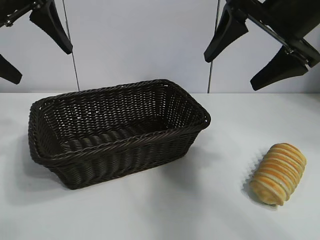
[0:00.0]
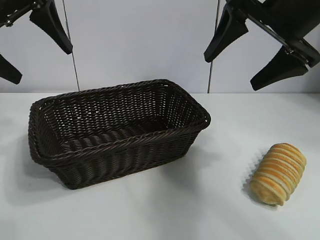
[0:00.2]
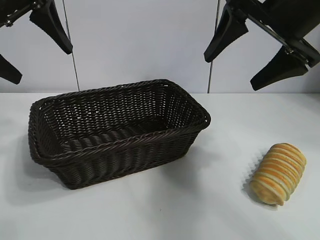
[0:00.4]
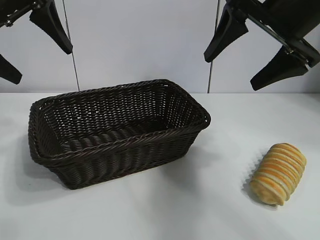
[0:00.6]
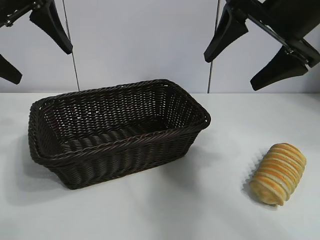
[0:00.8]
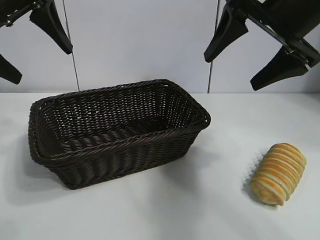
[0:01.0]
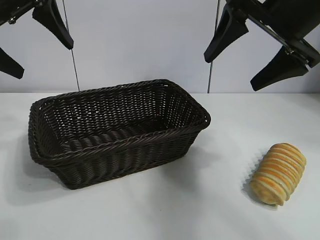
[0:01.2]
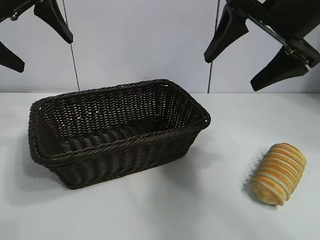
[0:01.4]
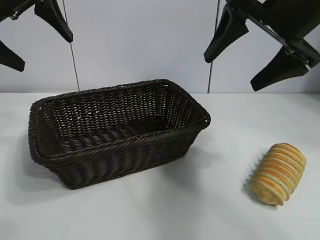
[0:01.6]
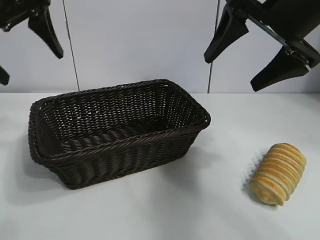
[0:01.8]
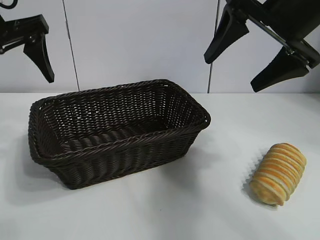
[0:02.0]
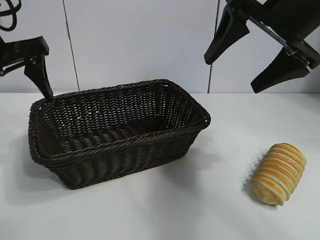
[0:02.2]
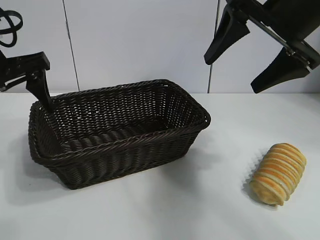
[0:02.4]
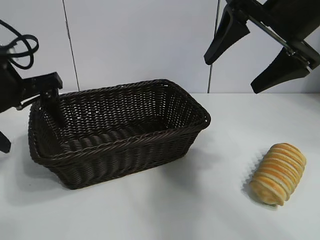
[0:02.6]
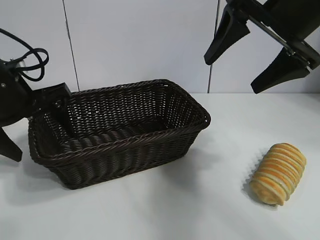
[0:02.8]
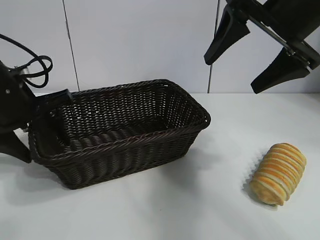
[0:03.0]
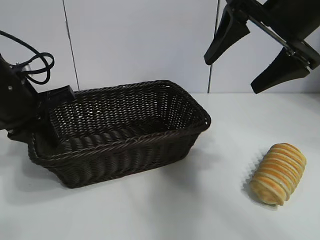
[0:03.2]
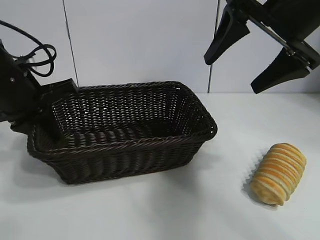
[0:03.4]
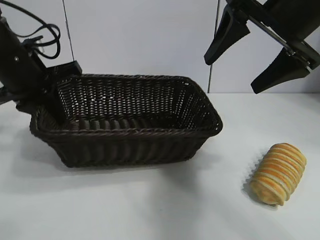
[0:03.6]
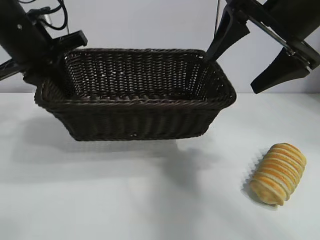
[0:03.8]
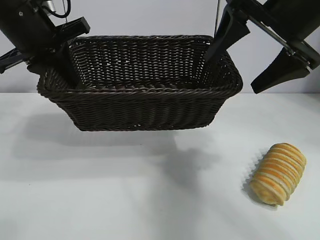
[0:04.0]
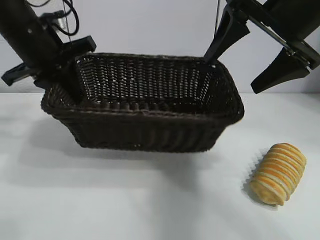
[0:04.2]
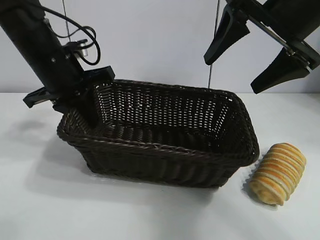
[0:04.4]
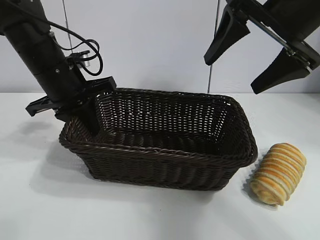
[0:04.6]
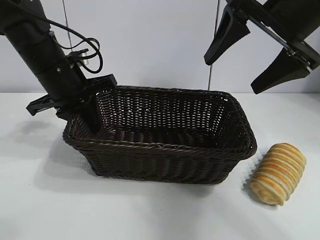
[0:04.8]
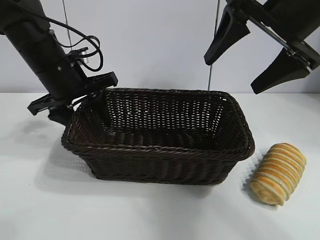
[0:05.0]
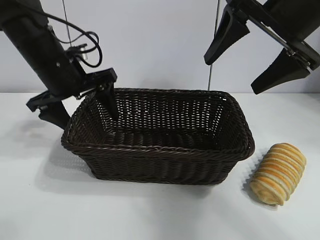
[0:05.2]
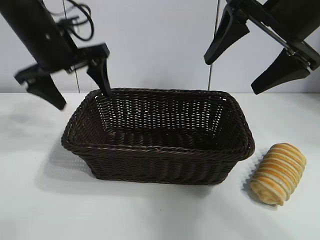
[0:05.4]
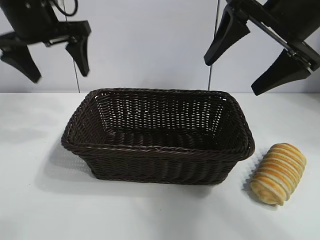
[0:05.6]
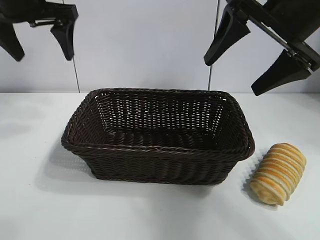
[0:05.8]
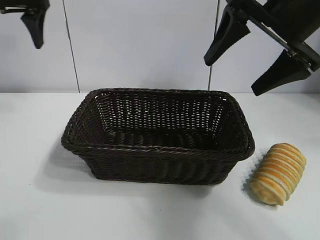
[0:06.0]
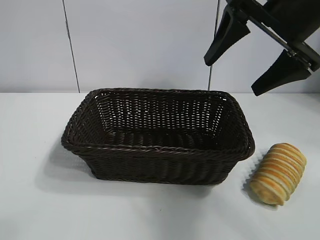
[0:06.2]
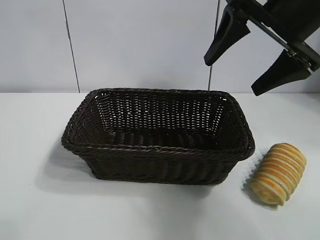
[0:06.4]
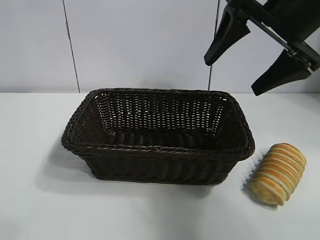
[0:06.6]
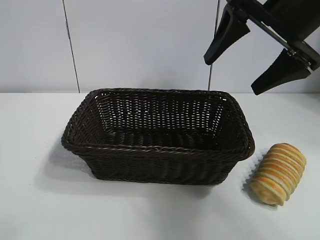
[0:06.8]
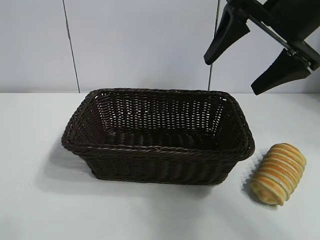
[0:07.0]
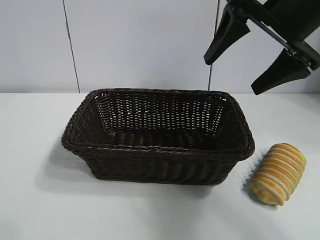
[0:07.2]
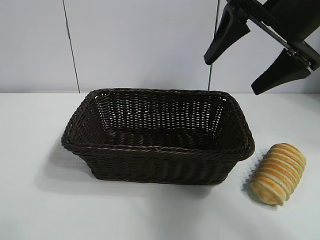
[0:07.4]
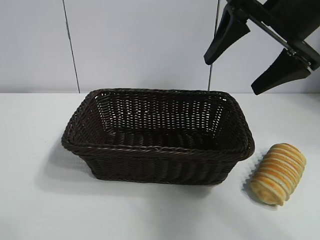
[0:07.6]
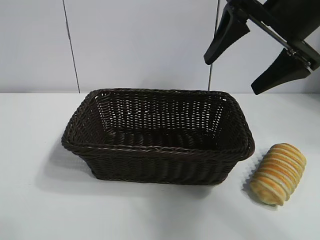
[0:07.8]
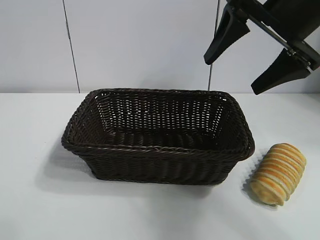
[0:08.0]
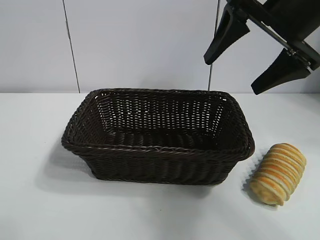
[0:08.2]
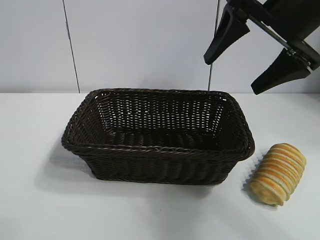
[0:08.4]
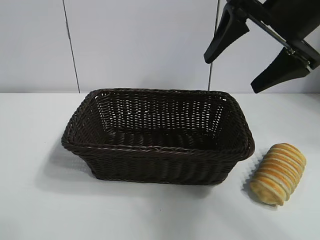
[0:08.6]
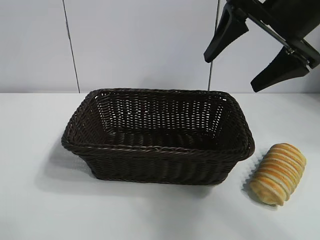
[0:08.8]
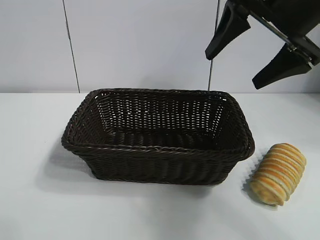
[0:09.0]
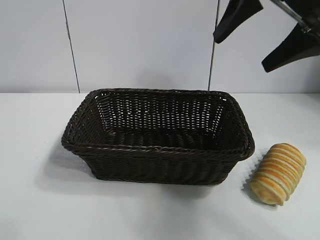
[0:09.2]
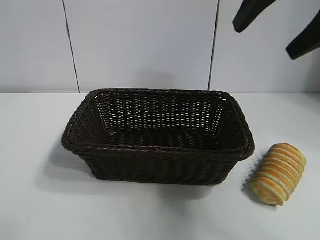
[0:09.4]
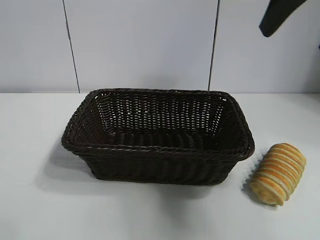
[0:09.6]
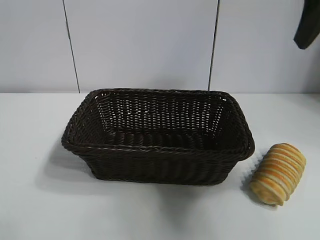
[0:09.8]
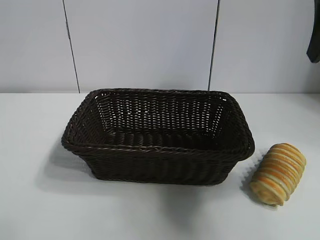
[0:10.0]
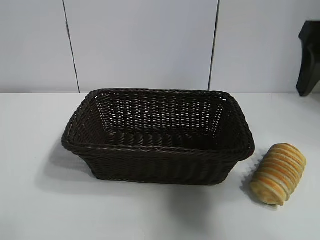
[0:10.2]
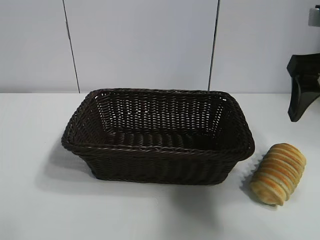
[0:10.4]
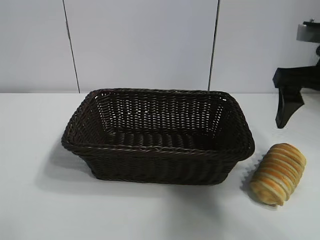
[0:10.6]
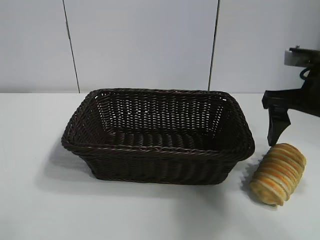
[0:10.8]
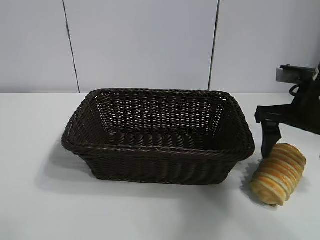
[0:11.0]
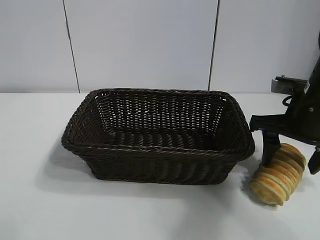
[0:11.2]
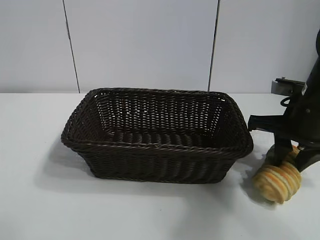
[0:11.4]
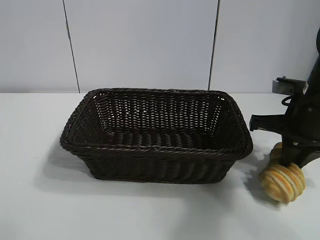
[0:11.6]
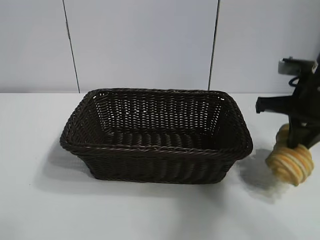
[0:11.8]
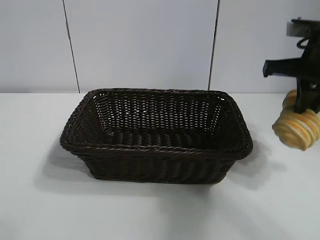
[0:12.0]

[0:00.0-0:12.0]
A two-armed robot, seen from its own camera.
Task of the whole recording: pick up the long bread and put it into the basket.
Step, 0:01.8 to 0:03.2: Grasp the basket with the left gripper.
Step, 0:03.4 to 0:05.0: Place the basket in the center of the table with the left gripper.
Step, 0:05.4 to 0:11.4: Grasp the long bread with right gripper.

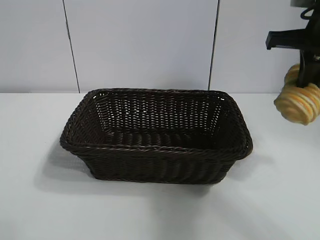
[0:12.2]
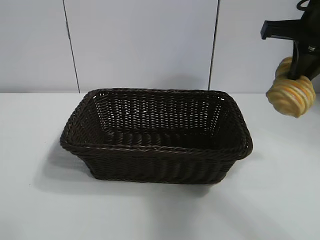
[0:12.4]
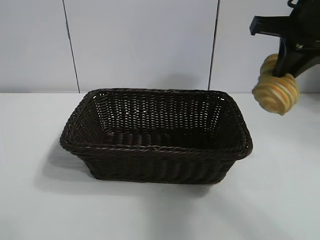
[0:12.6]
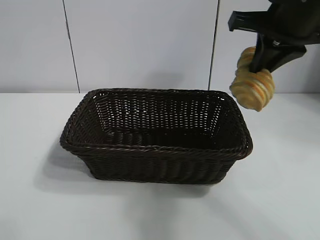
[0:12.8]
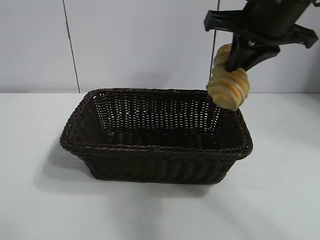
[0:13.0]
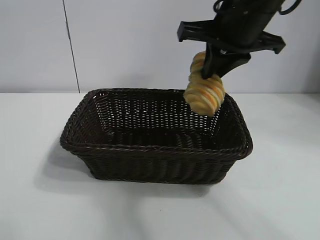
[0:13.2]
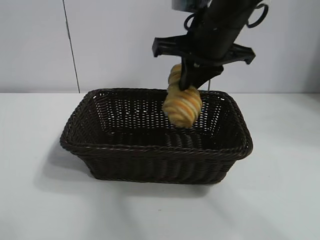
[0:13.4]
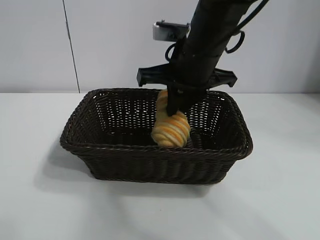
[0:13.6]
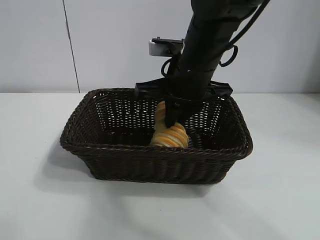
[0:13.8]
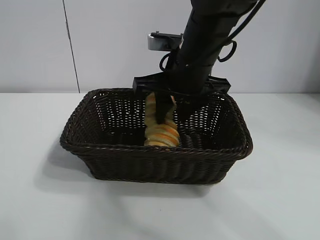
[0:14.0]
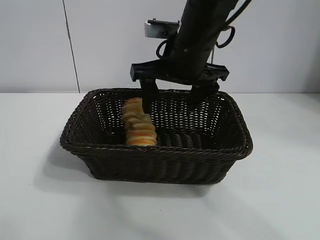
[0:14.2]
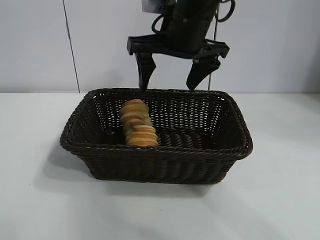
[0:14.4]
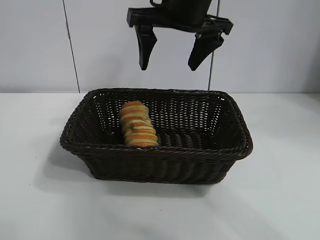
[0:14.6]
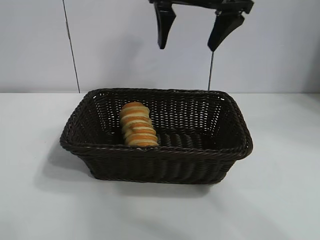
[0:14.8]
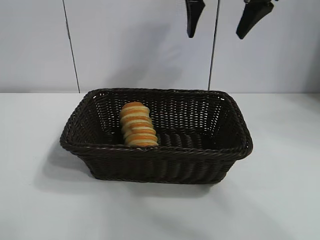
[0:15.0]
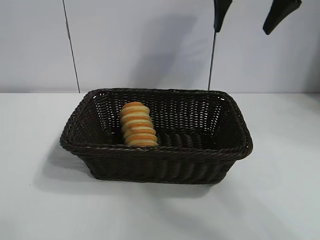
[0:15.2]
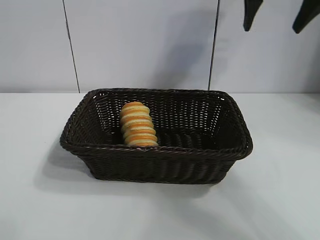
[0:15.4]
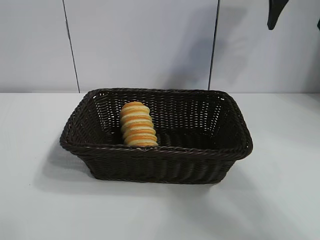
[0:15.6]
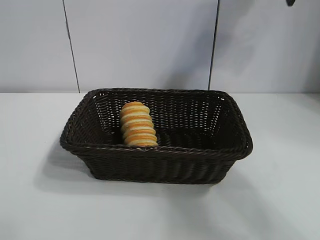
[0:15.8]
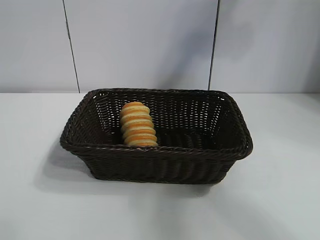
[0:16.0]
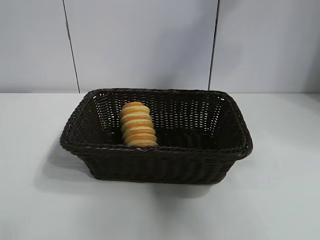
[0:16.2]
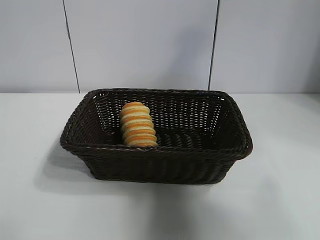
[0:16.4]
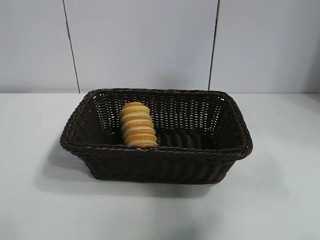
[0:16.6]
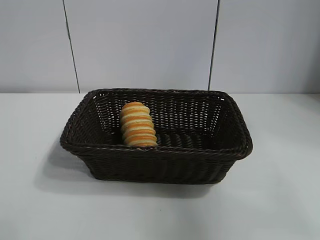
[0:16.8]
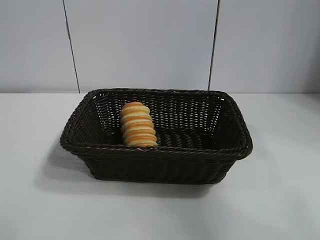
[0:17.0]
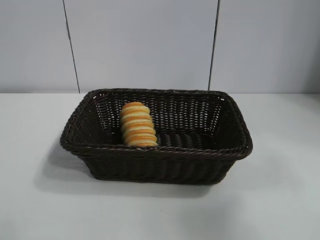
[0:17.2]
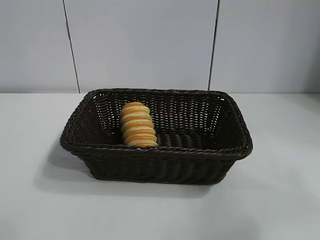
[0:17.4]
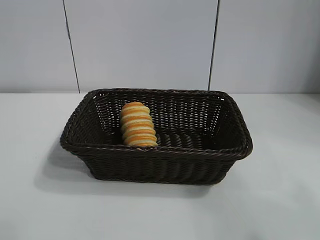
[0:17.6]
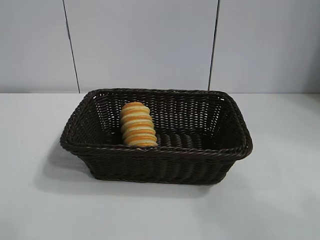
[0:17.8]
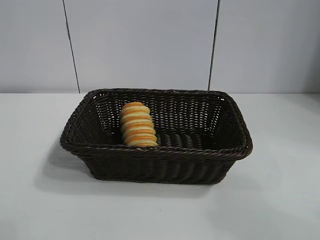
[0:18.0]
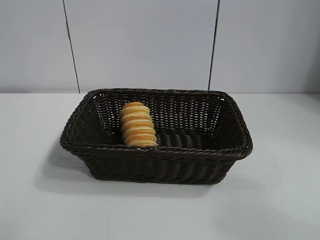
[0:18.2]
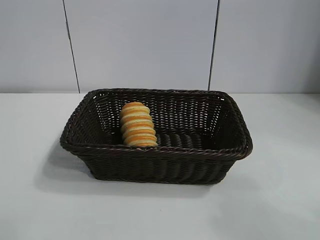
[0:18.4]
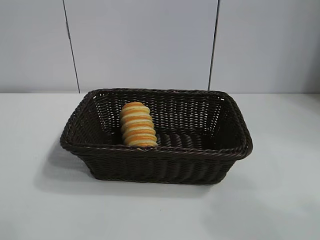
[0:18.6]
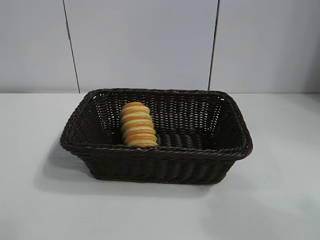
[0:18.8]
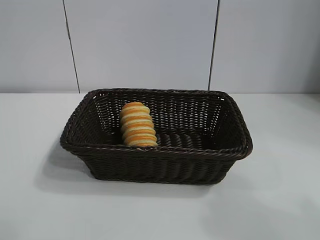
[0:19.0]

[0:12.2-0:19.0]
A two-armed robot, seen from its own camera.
Task of the whole recording: pick up the long bread and put it into the basket.
Step, 0:12.2 to 0:14.0: Place the long bread in the basket with right gripper.

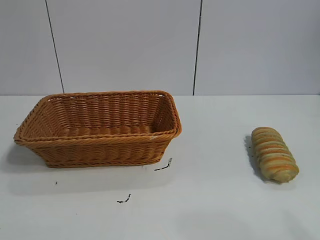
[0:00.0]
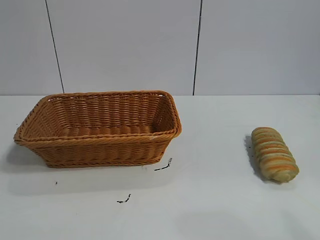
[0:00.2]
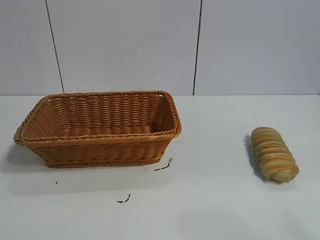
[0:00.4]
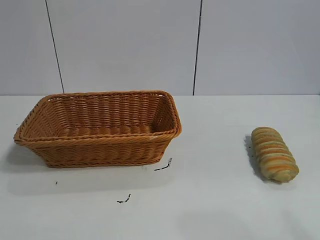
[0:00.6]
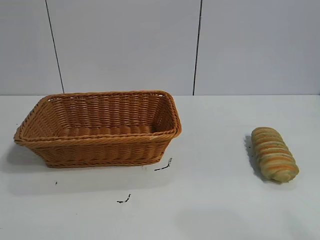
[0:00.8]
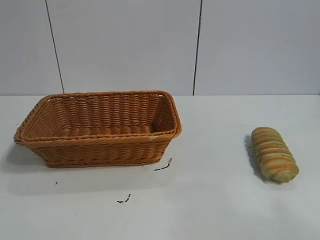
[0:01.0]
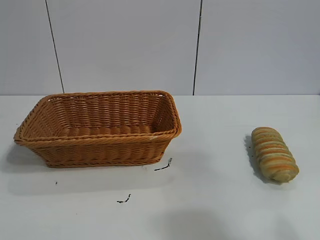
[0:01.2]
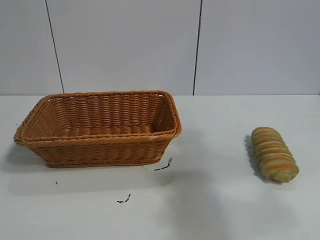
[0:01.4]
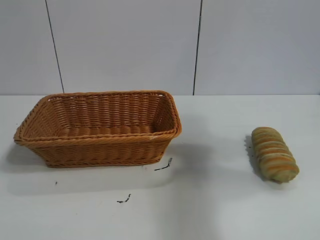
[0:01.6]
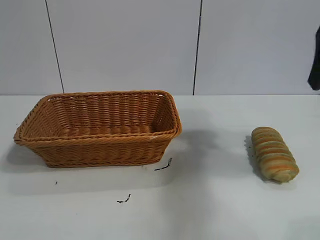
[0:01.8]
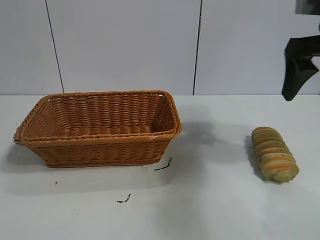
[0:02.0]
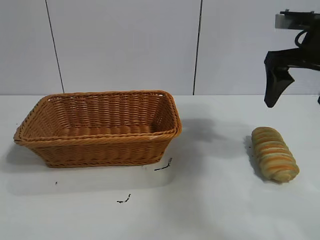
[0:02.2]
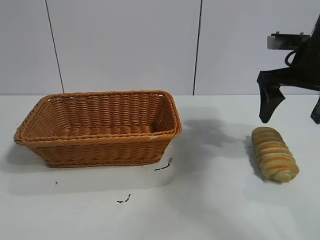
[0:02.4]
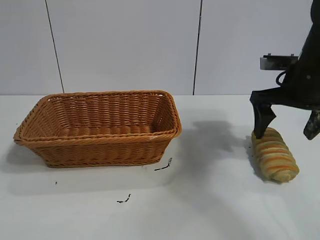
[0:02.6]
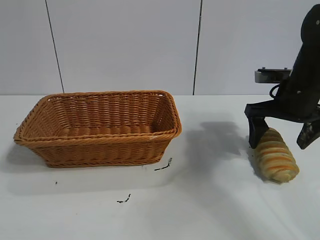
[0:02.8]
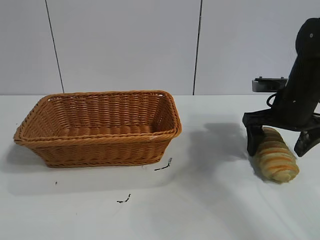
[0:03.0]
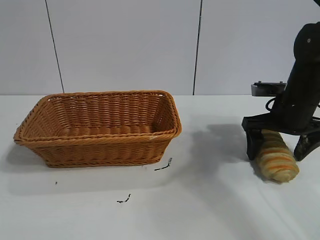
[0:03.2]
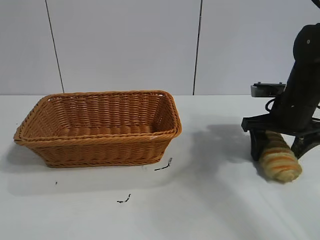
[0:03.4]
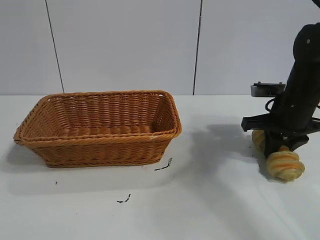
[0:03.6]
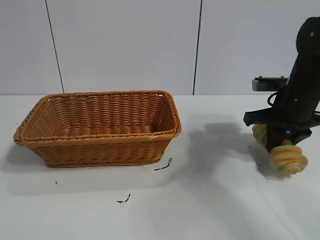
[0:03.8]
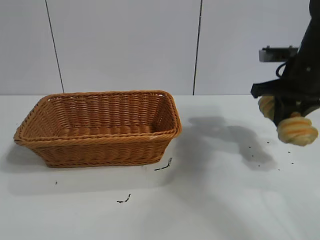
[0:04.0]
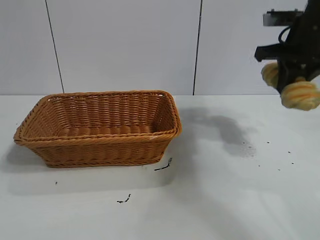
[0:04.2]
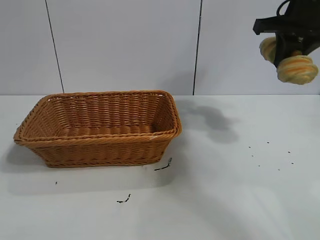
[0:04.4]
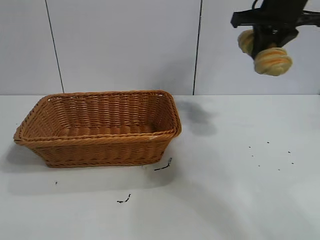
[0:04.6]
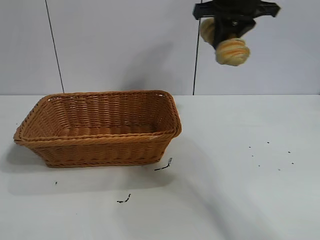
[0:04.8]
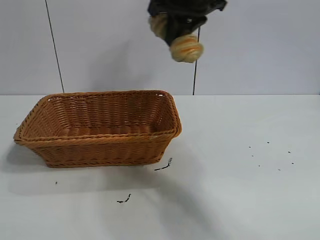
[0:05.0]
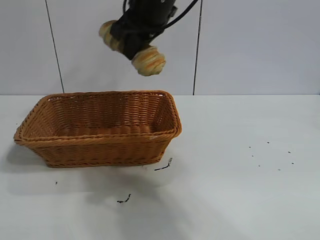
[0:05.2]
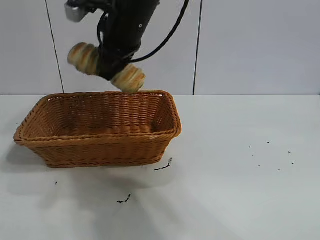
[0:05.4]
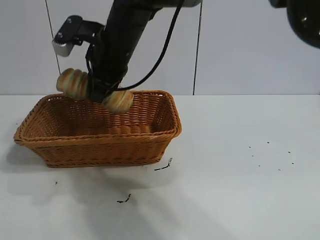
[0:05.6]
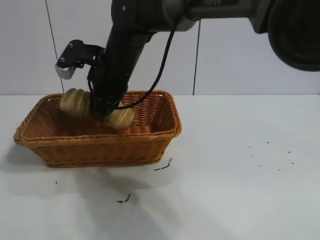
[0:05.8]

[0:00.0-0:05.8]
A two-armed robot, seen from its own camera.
Task of the whole recording: pick up the long bread and put it into the basket.
Step, 0:01.8 to 0:03.6: Grasp the long bread with right gripper.
